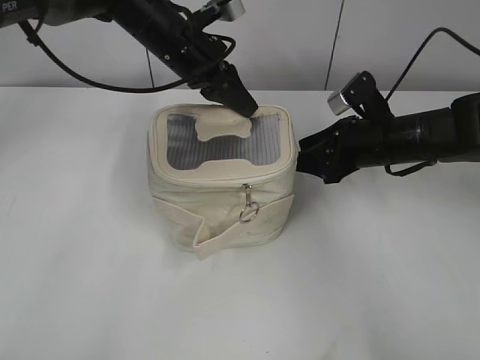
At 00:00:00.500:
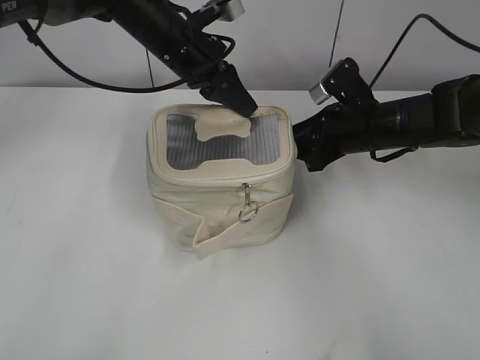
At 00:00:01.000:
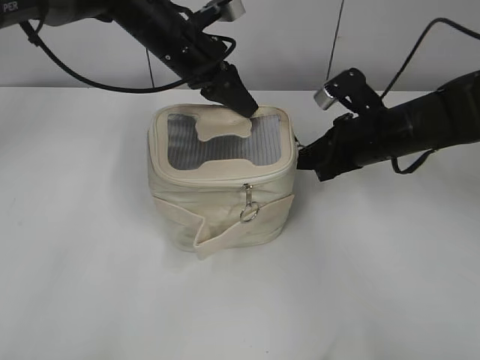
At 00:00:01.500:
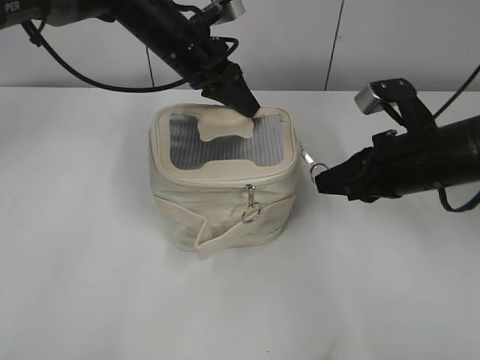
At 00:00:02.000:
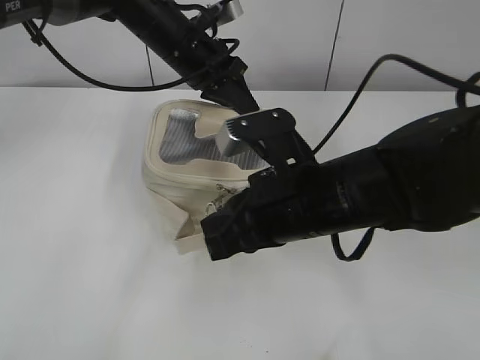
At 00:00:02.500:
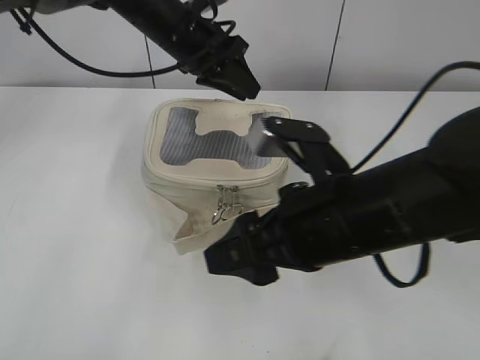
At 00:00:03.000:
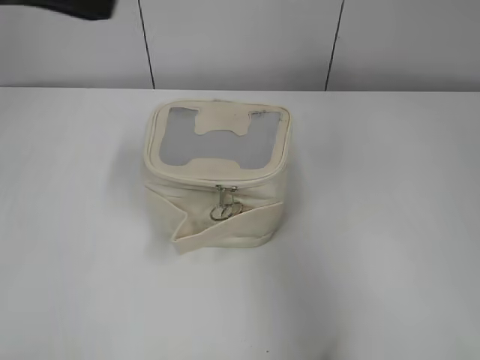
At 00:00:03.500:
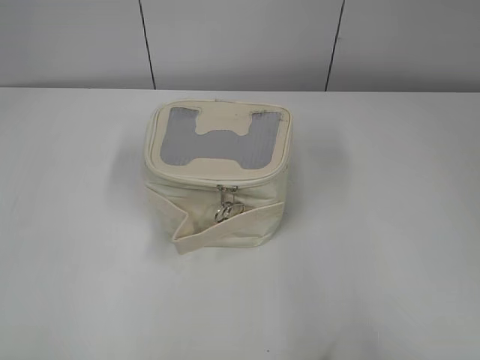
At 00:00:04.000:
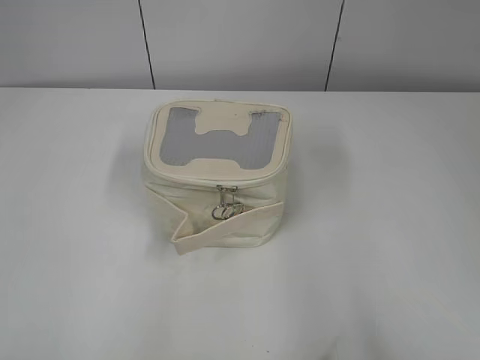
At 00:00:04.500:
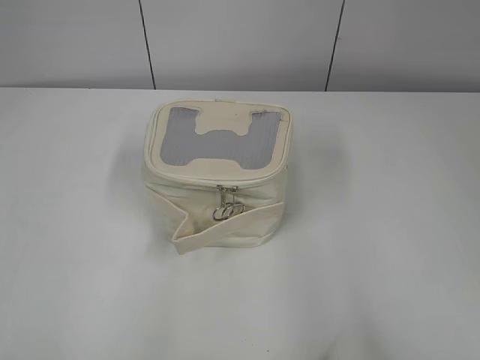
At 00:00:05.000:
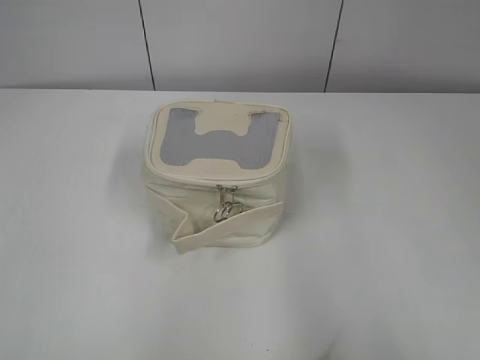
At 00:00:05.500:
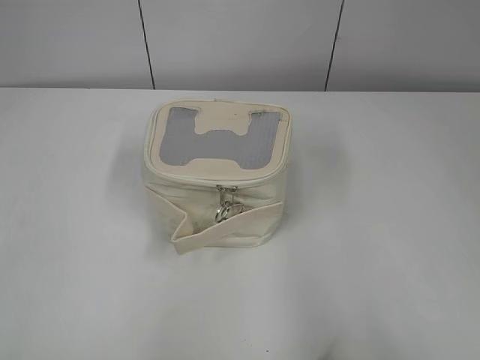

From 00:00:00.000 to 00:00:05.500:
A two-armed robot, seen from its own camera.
Step, from 00:00:00.000 to 00:00:02.000: Zip up the bag with your right hand.
From 00:00:00.000 to 00:00:02.000: The right gripper goes about 20 cm backward and to the left, and closes its fingers.
From 00:00:02.000 to 00:00:03.500: The left gripper goes about 50 cm backward and to the left. The right gripper is displaced to the right, backward and upward by some 30 cm, and opens up.
